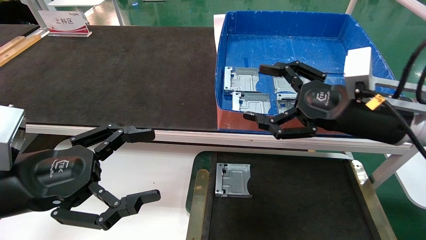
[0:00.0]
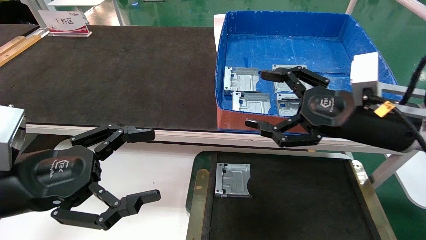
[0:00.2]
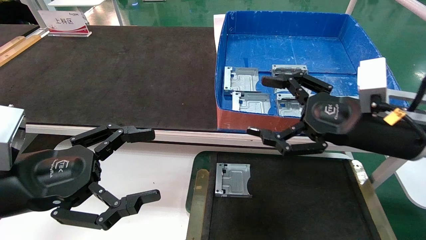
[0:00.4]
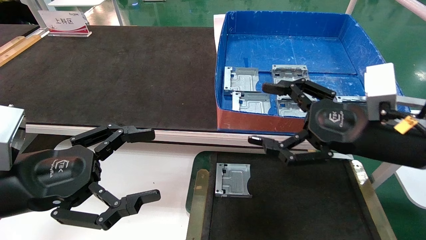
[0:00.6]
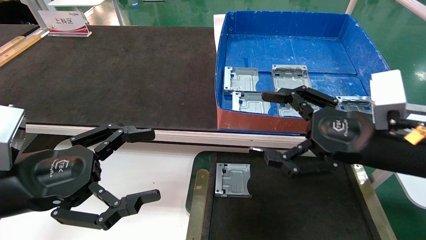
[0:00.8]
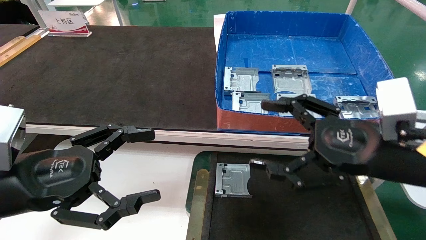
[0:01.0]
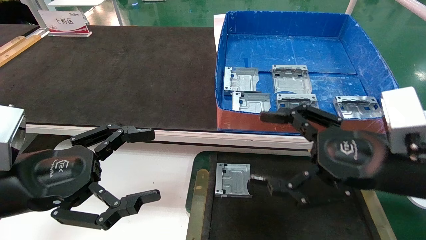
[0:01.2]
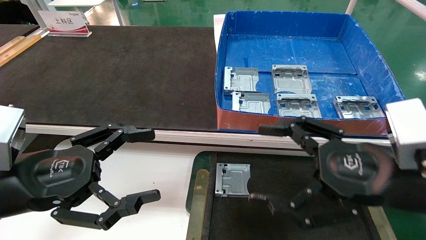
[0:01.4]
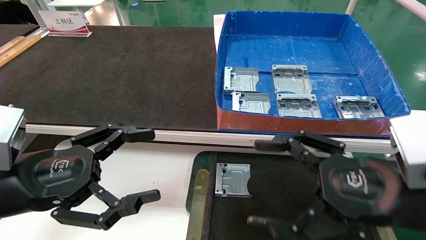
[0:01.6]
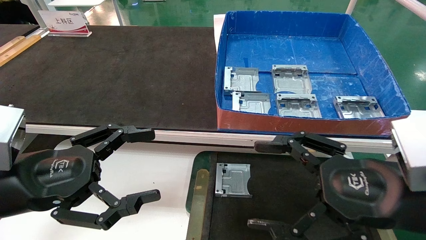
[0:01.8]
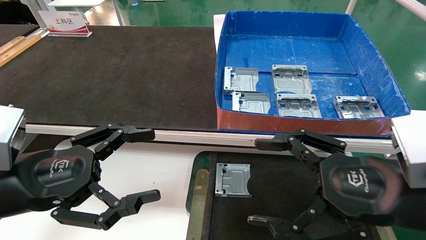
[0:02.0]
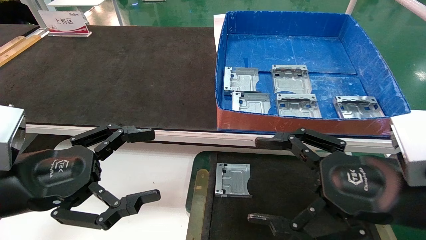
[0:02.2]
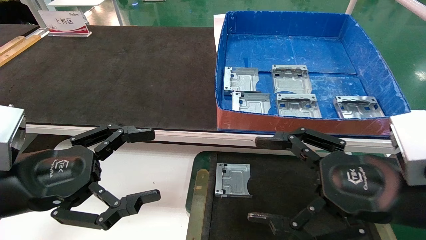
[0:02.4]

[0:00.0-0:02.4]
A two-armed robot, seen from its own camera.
Task of the whole recording: pick up parts and place them into a black container.
0:00.0 to 0:01.2: The right gripper is displaced backward by some 10 cm.
0:01.2 to 0:02.4: The grippers make only small movements.
